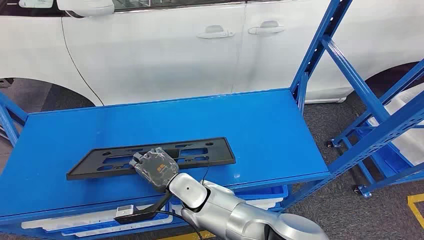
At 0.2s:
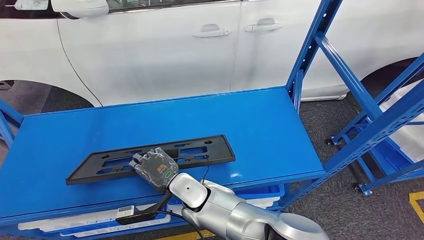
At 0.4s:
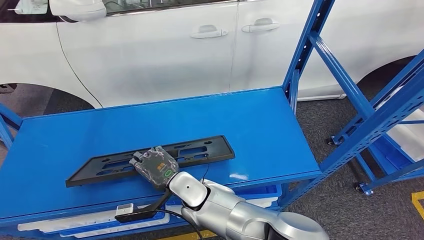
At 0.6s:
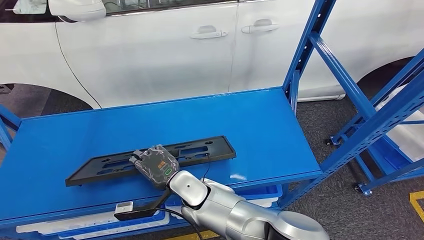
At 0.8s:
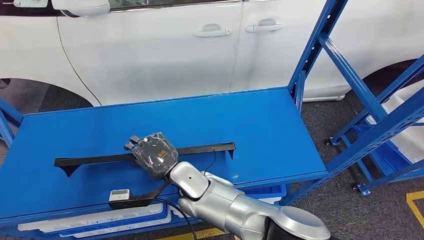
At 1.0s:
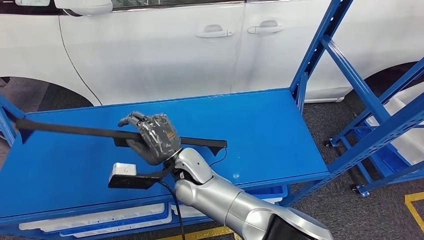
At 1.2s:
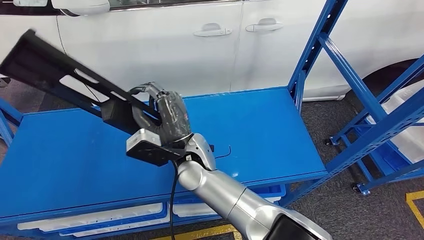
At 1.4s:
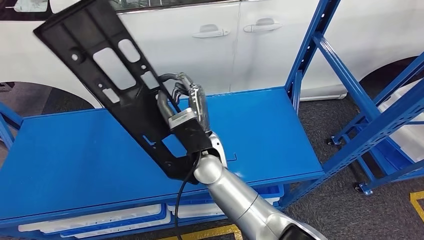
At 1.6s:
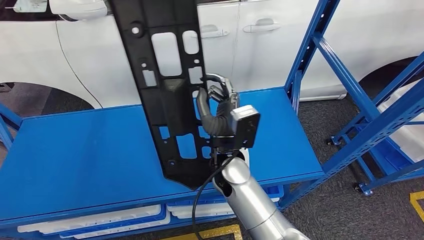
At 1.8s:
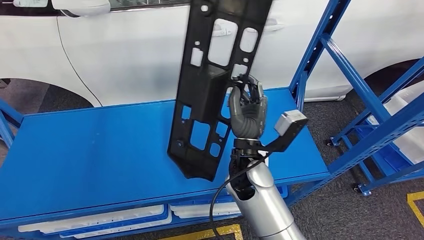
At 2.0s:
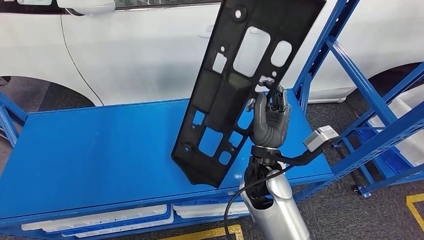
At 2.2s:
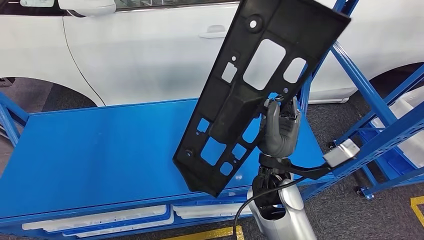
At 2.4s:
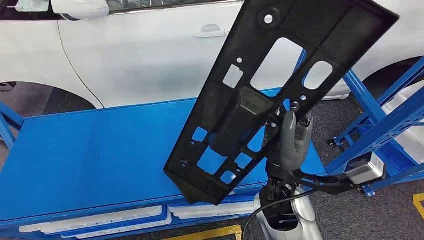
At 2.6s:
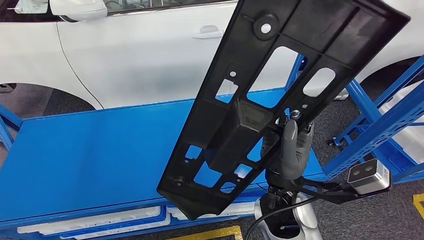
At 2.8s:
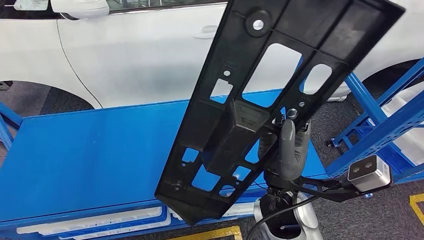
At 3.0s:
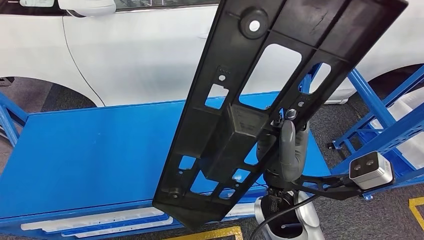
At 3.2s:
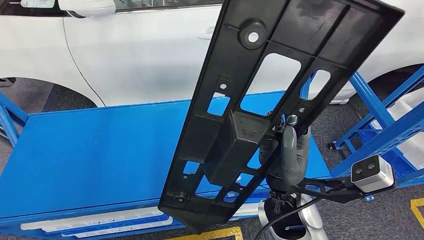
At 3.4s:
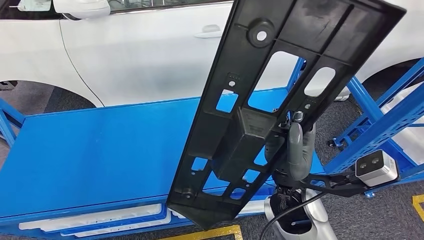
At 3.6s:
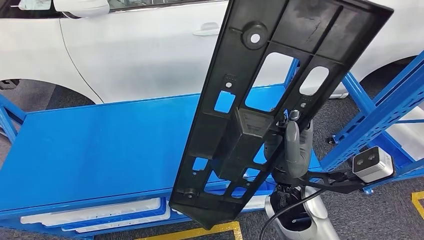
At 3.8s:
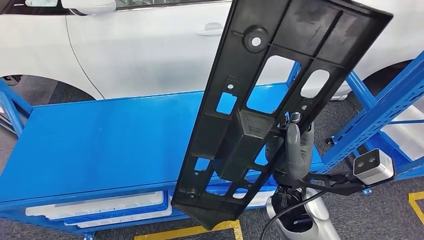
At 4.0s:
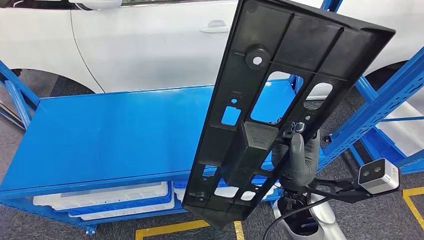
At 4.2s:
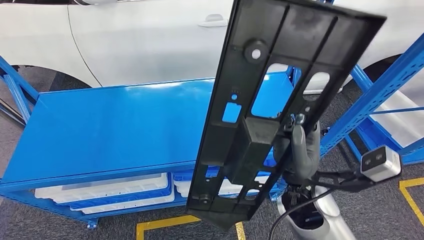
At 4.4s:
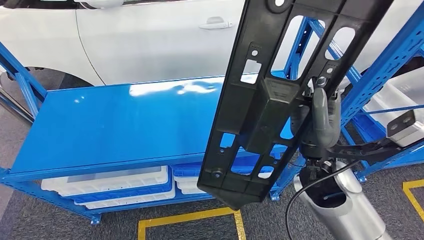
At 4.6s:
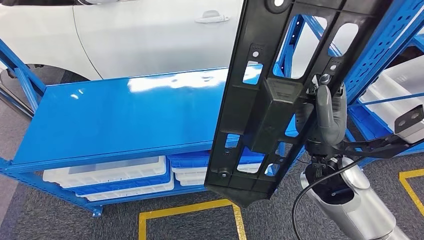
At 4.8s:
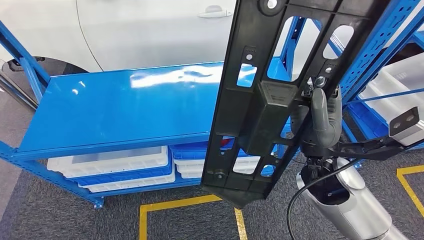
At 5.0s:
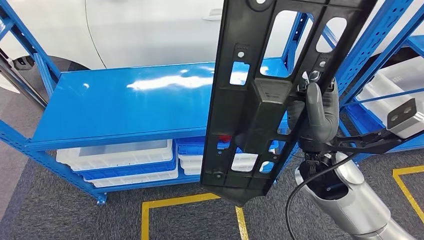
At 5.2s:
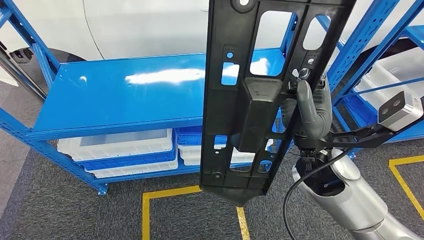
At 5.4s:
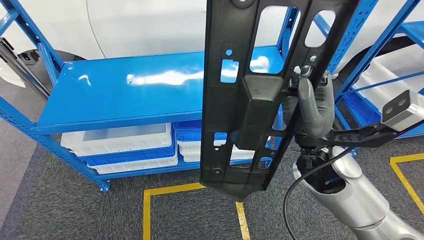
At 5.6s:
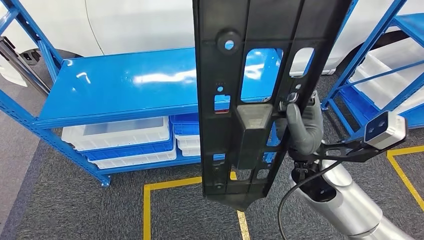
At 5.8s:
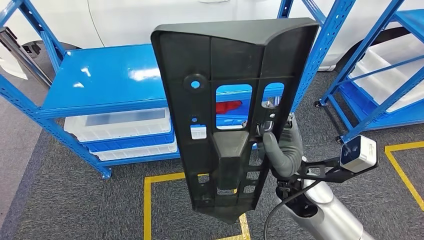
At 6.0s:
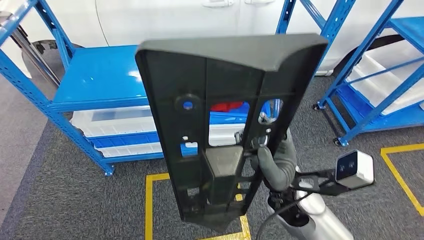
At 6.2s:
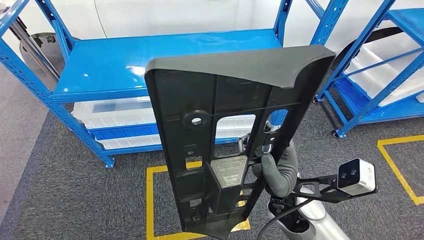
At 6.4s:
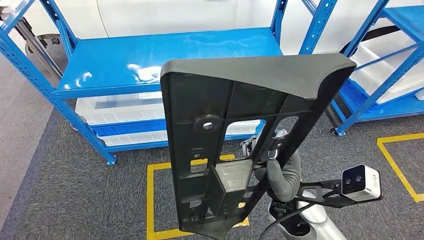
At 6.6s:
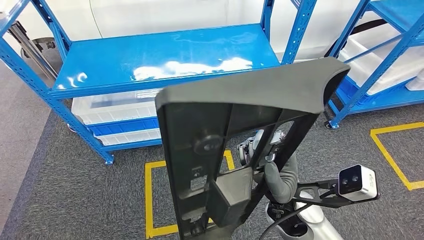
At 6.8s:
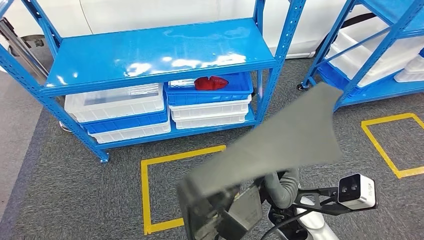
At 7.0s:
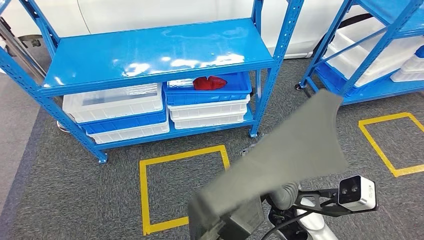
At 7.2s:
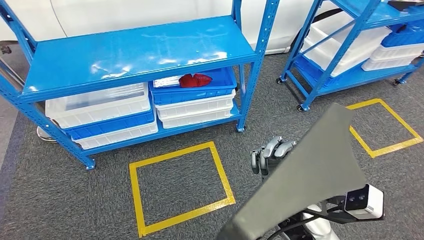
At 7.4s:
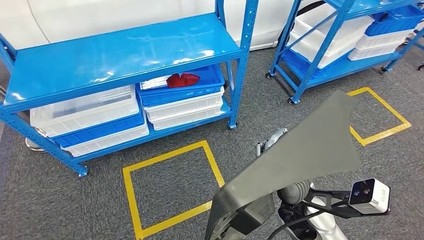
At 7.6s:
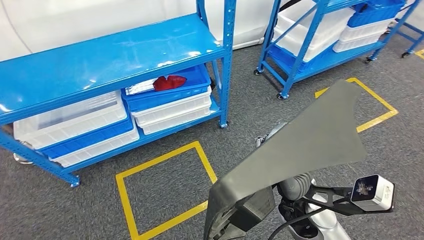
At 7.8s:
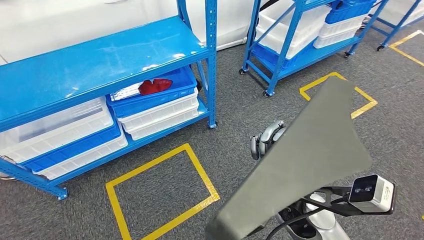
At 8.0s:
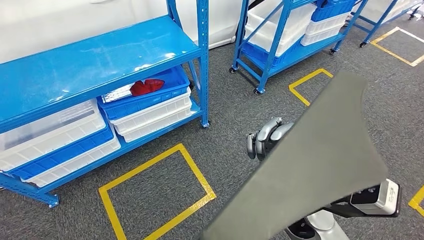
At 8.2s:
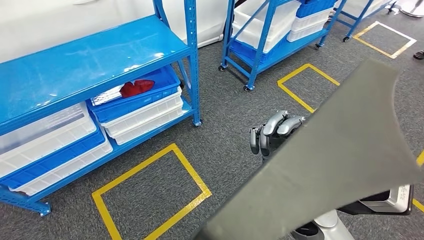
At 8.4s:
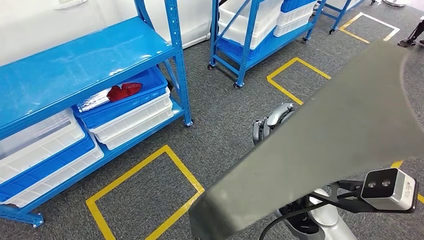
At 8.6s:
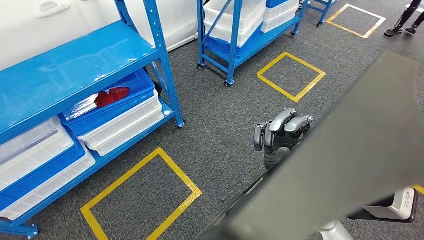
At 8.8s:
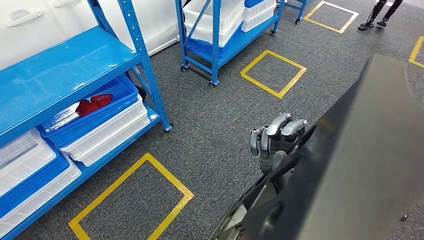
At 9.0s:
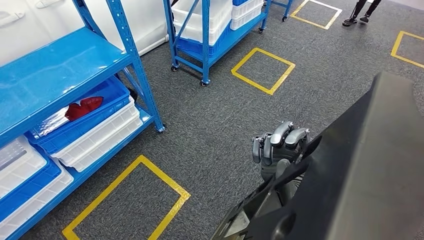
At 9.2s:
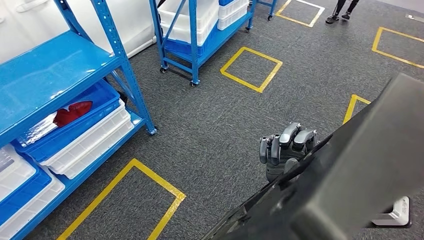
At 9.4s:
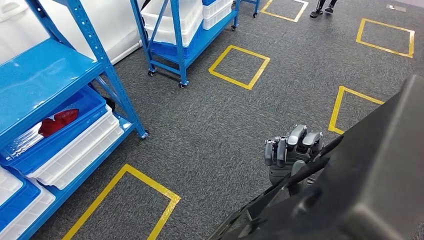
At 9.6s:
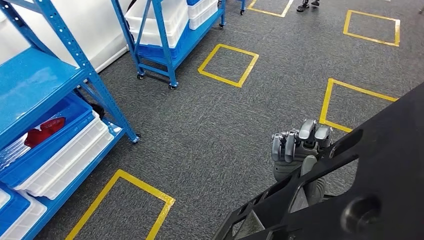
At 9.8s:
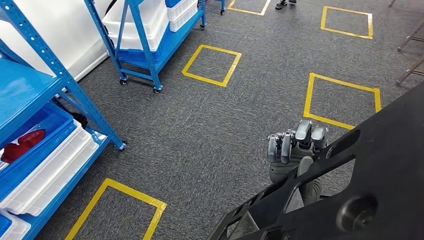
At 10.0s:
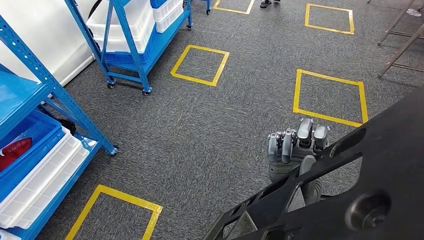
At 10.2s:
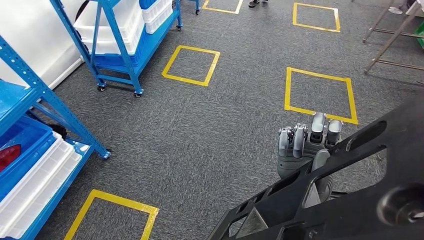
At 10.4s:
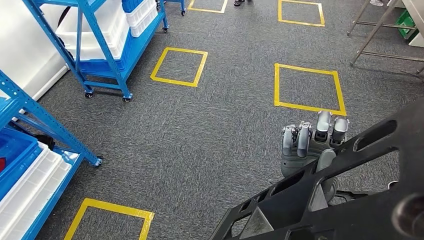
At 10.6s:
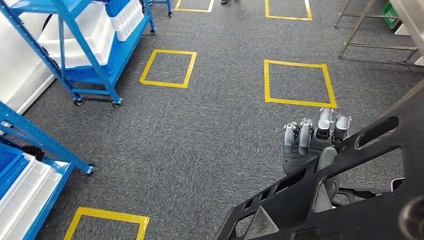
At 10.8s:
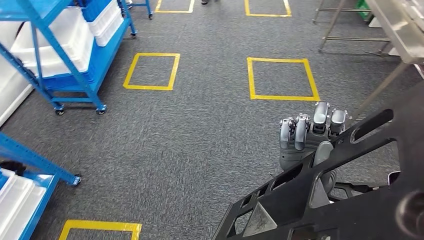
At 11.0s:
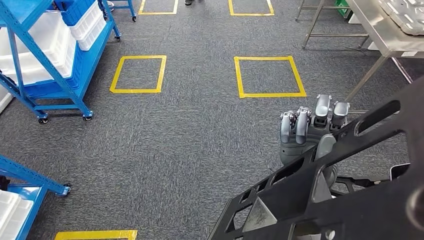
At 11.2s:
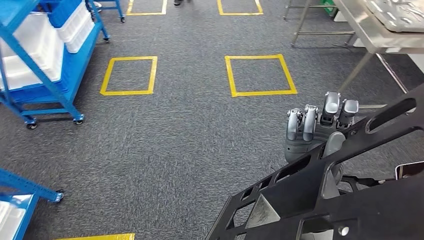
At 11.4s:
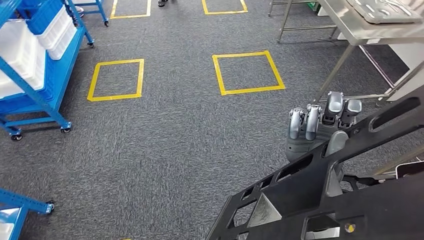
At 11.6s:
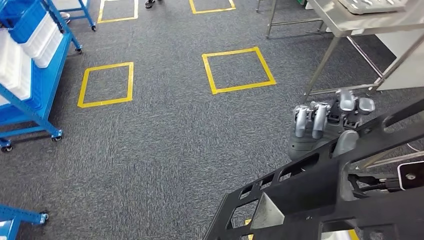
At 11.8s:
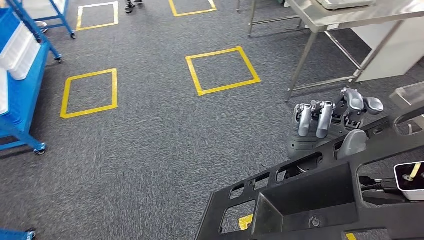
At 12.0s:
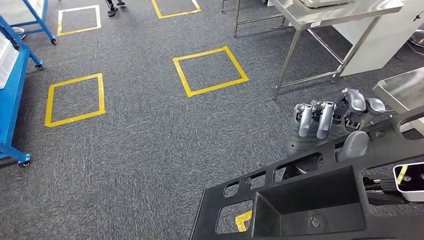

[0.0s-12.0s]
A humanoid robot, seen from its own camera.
Step, 0.0s to 2.4s: Pick up the large parts from the shelf.

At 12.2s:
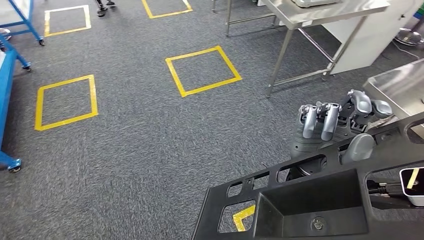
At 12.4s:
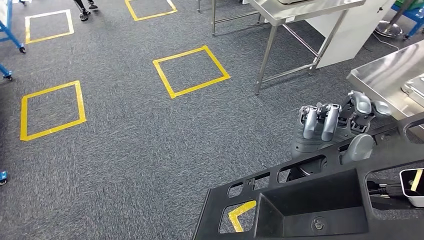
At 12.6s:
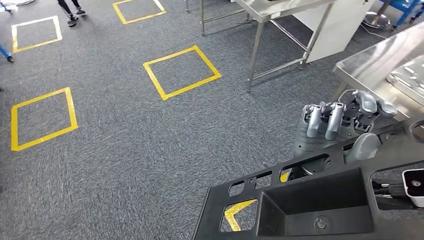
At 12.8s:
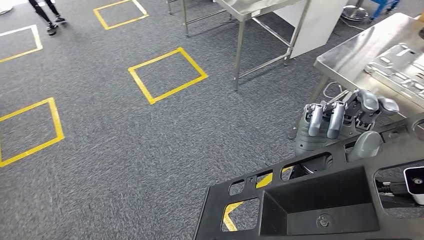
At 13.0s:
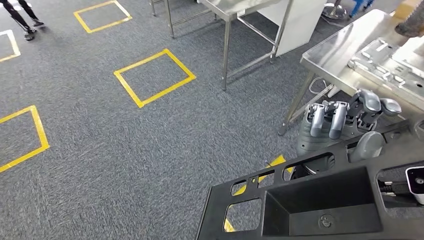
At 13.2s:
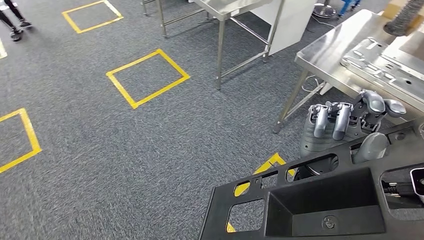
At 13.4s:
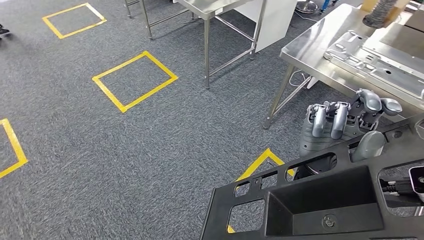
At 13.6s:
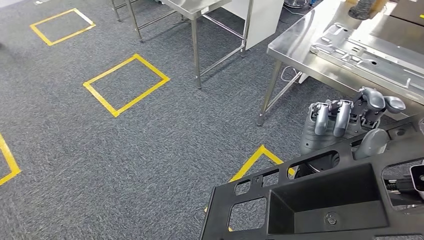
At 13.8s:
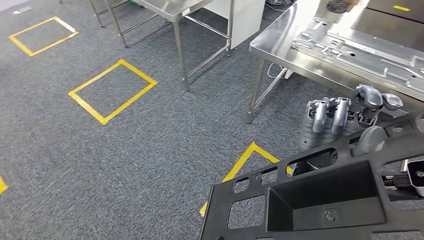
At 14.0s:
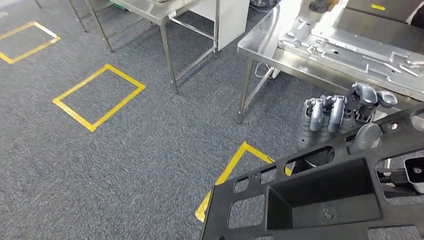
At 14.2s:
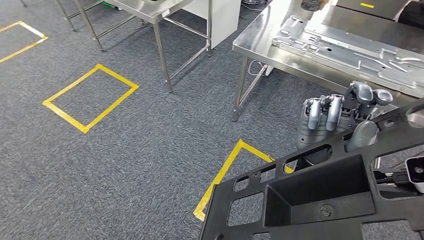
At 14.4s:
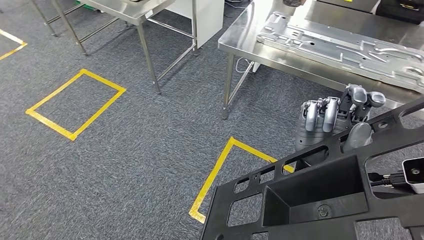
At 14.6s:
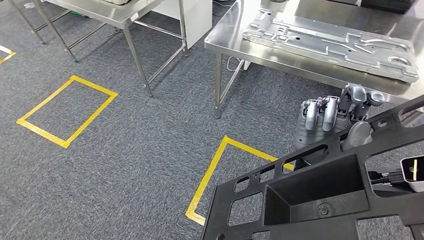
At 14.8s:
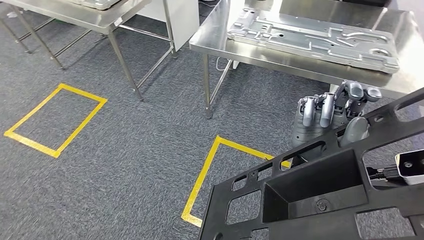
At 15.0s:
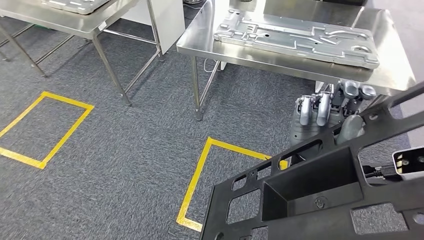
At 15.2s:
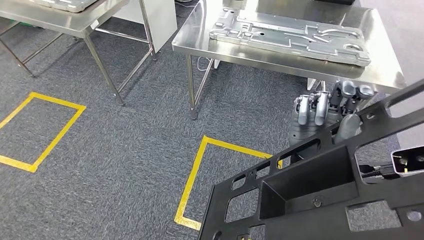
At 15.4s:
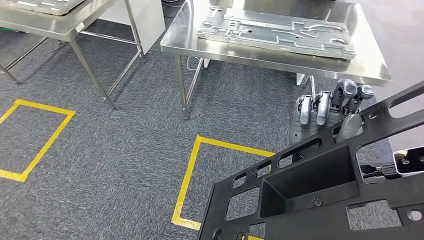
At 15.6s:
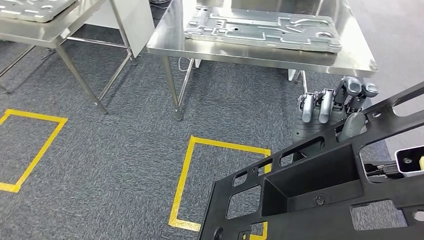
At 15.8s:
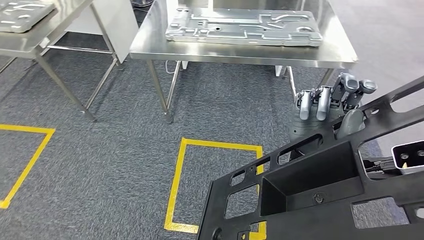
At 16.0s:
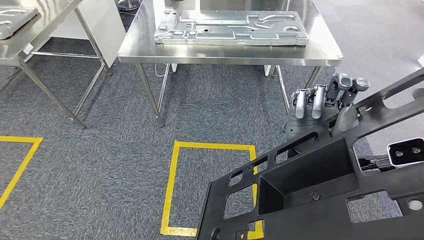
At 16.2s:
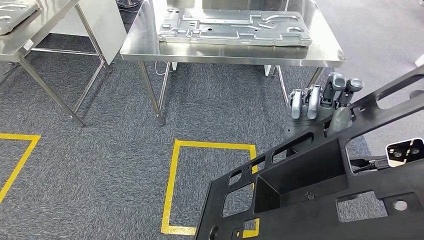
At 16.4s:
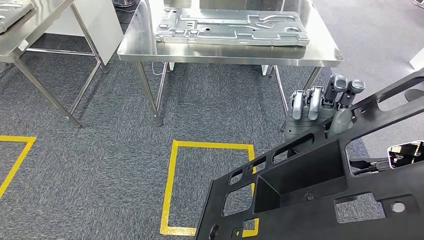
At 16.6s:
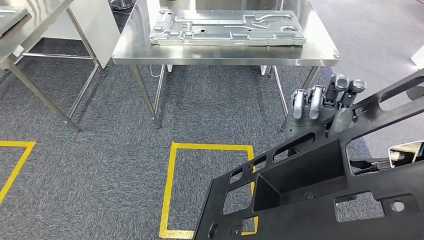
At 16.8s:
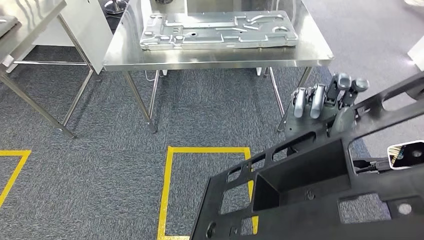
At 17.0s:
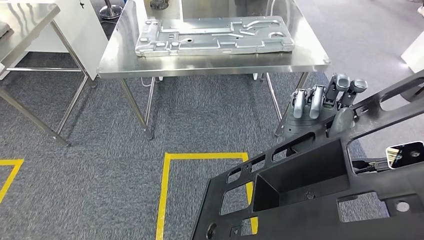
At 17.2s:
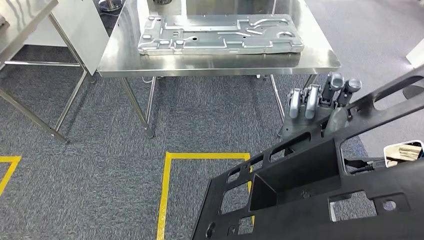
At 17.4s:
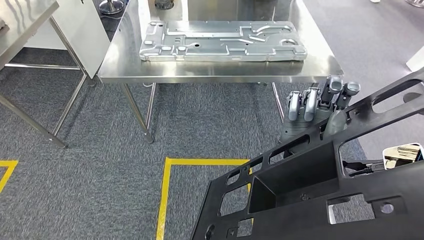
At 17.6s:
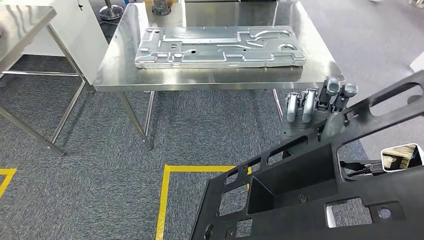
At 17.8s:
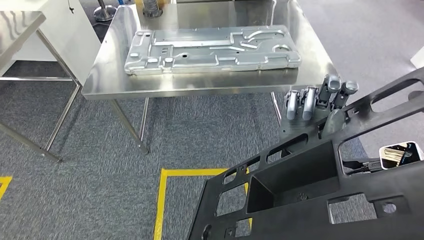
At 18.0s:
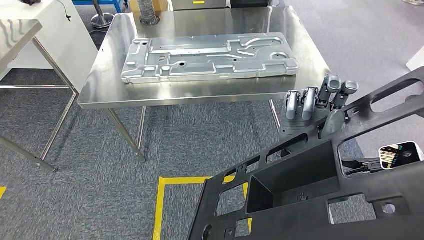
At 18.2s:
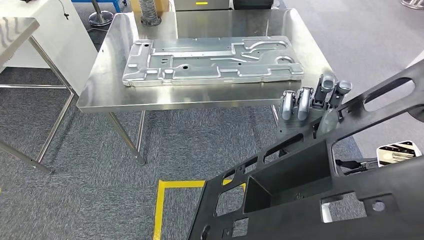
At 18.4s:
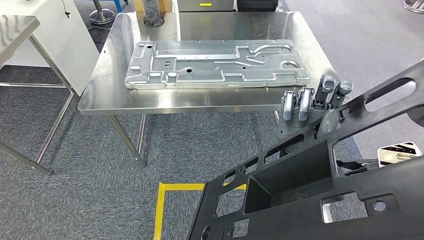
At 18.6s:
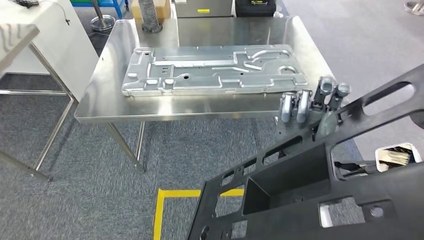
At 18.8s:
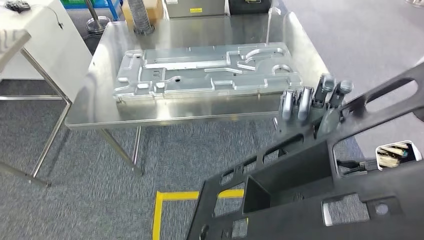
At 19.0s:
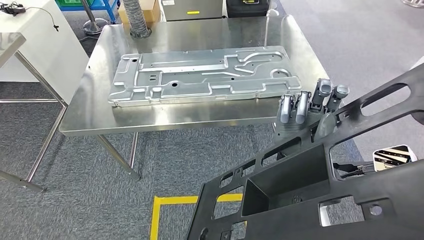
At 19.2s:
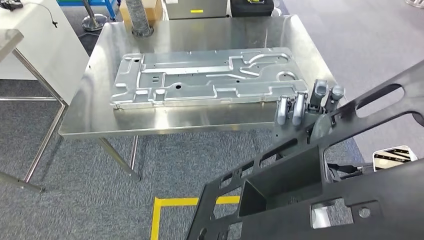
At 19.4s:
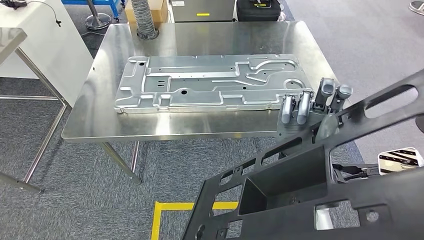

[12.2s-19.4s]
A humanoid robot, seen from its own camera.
Step, 12.2s to 19.4s: Move the large parts to the workbench.
